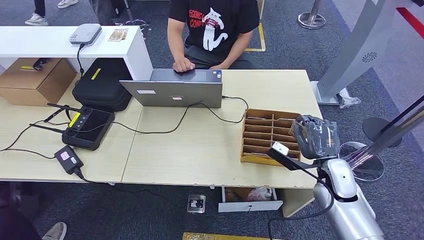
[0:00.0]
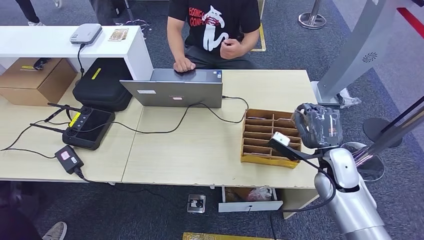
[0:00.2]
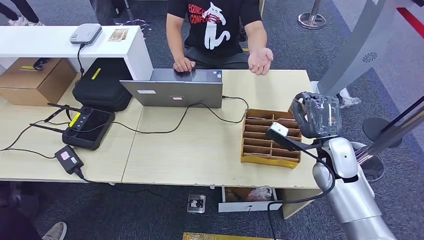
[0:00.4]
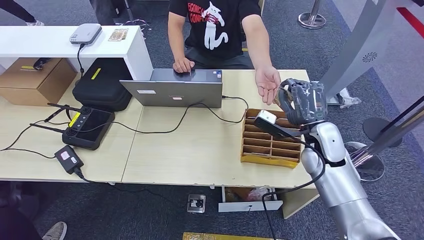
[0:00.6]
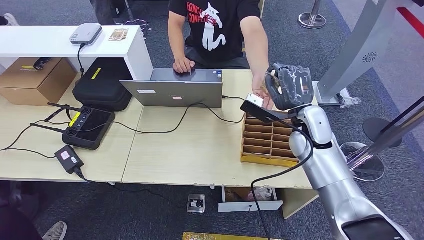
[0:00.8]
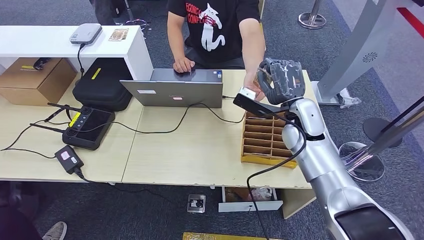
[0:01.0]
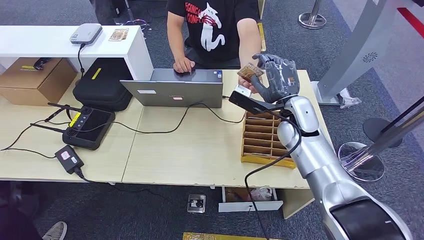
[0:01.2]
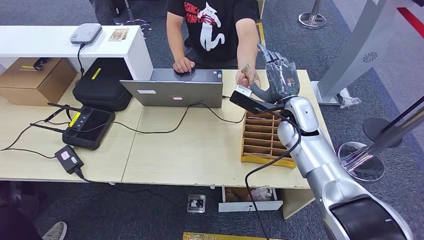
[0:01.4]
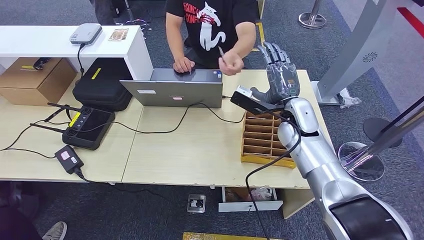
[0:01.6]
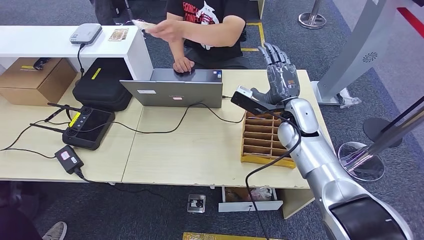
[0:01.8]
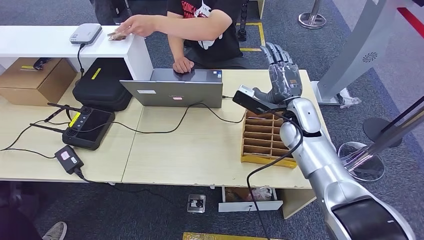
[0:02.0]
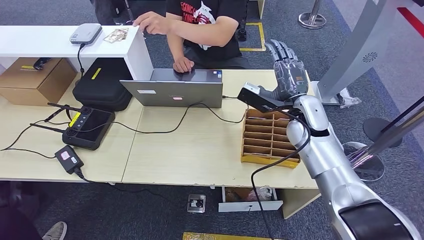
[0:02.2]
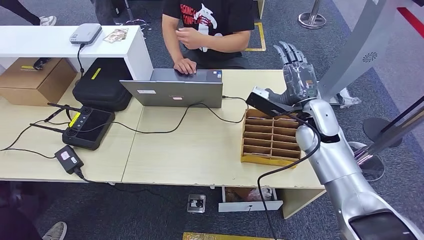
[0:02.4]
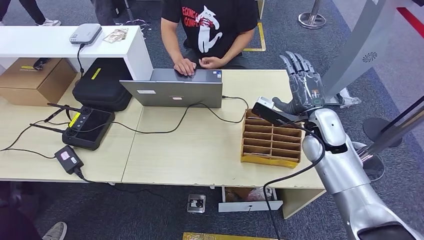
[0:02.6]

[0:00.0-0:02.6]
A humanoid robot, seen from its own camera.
Step, 0:00.2 to 0:02.6: Hand the room card to the target.
0:00.0 to 0:01.2: The right hand is displaced upward, forward and to the left by approximately 20 cm.
0:01.2 to 0:02.6: The right hand is displaced to the right by roughly 5 cm.

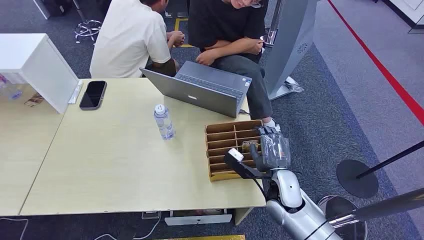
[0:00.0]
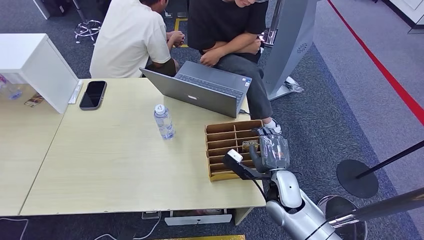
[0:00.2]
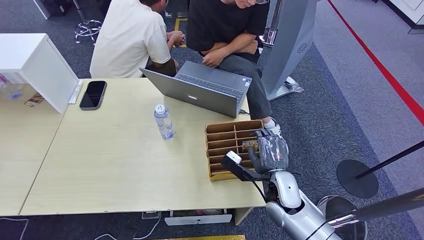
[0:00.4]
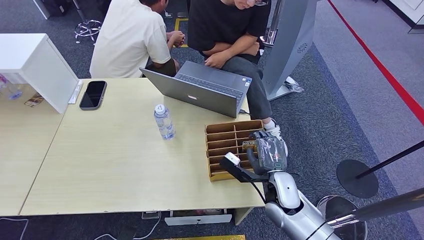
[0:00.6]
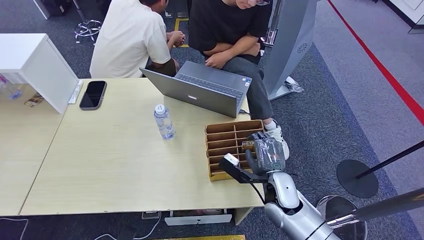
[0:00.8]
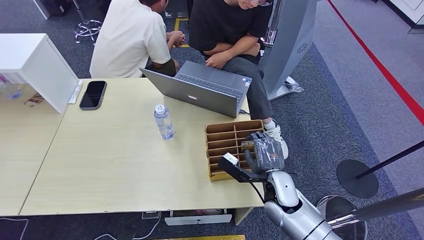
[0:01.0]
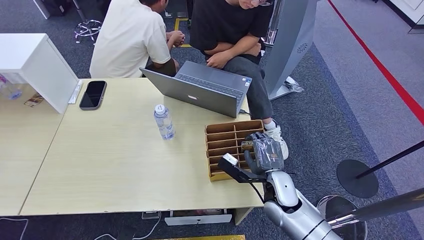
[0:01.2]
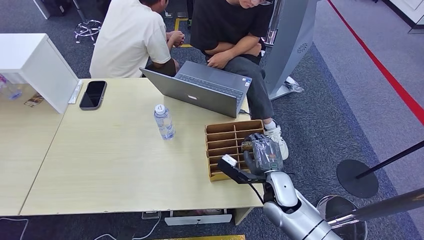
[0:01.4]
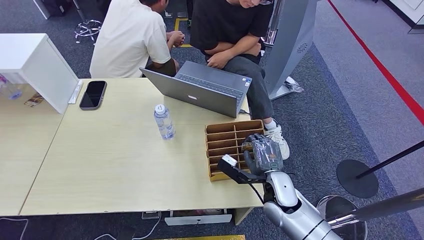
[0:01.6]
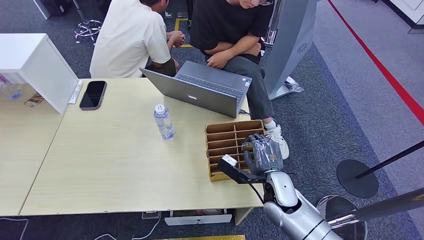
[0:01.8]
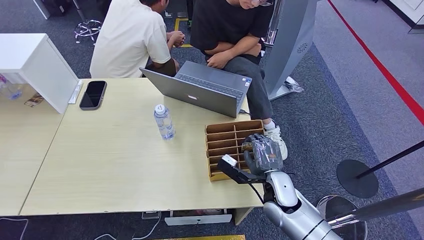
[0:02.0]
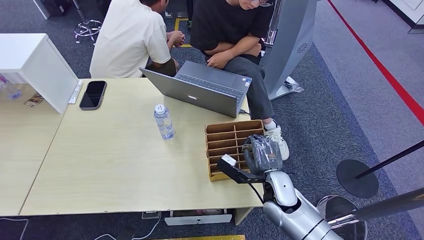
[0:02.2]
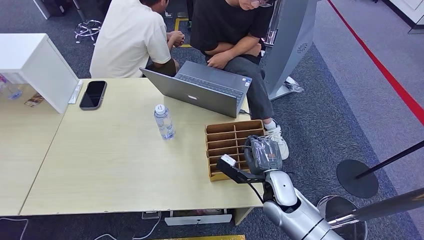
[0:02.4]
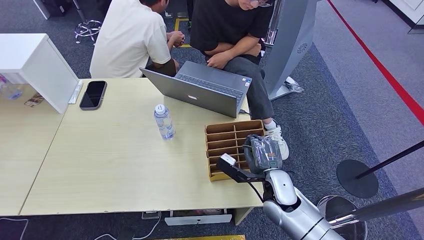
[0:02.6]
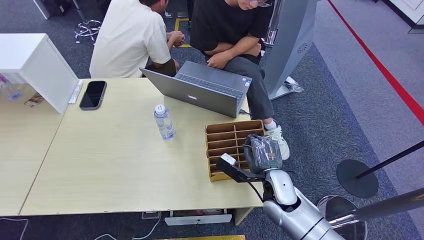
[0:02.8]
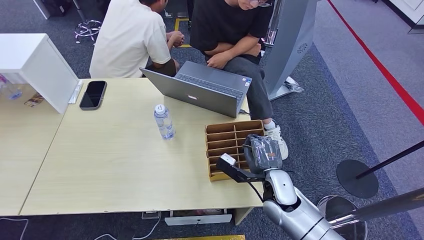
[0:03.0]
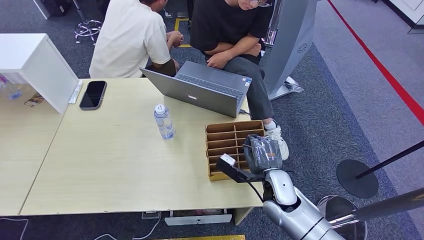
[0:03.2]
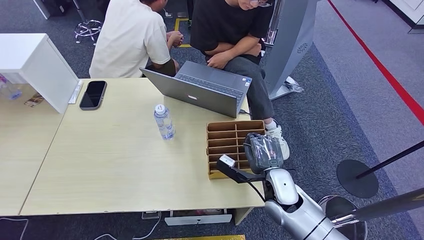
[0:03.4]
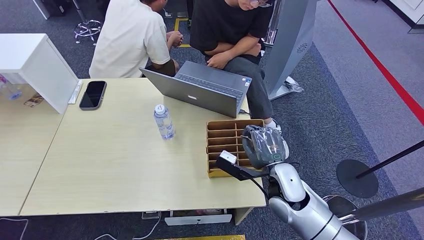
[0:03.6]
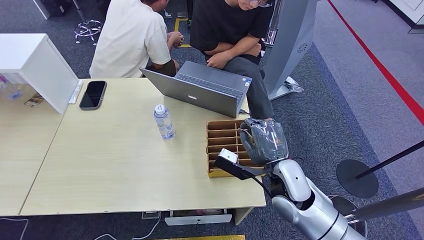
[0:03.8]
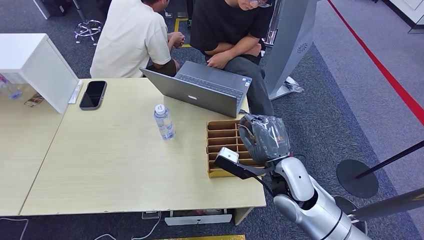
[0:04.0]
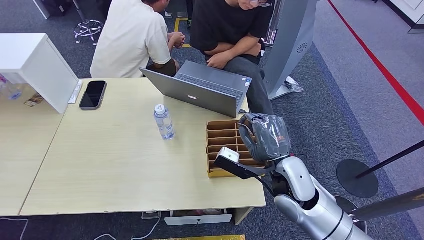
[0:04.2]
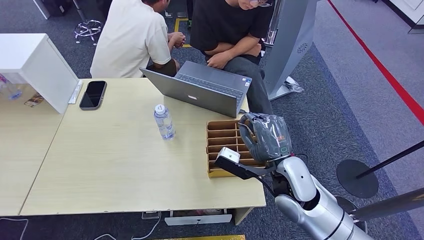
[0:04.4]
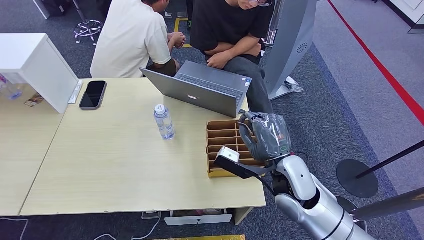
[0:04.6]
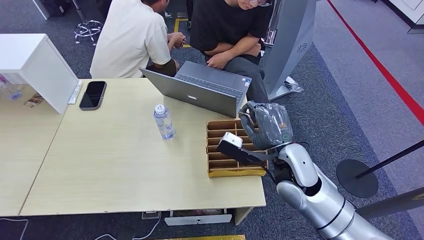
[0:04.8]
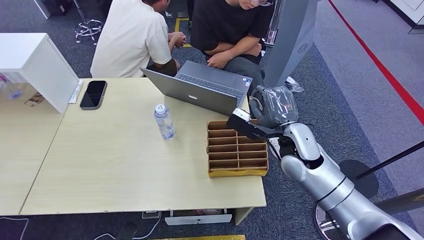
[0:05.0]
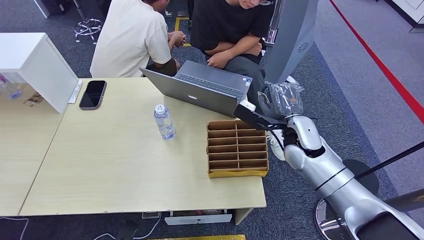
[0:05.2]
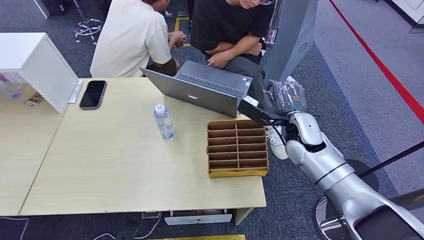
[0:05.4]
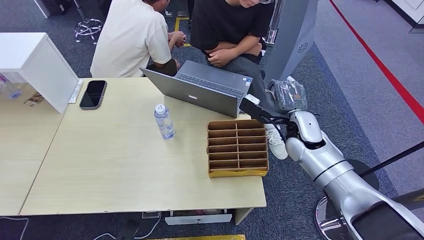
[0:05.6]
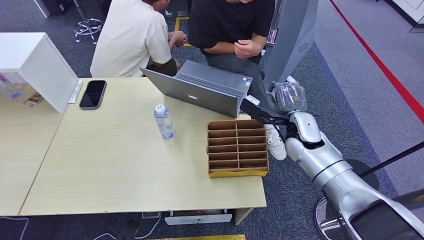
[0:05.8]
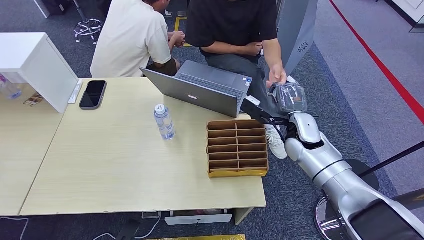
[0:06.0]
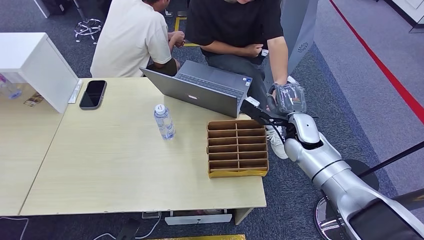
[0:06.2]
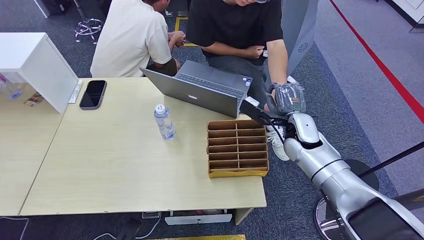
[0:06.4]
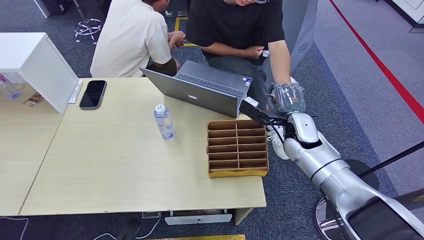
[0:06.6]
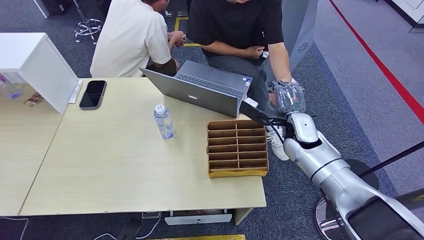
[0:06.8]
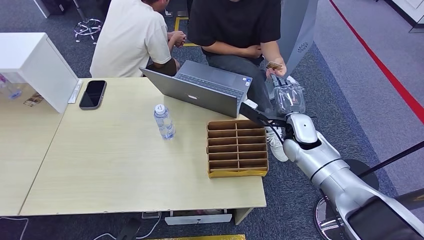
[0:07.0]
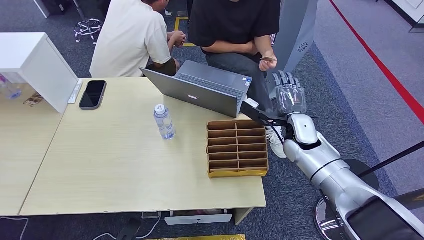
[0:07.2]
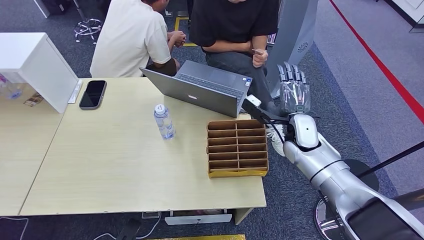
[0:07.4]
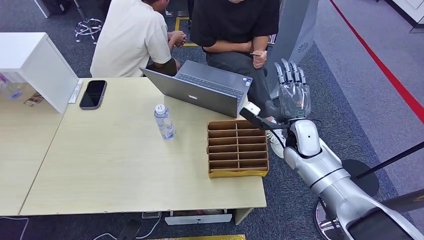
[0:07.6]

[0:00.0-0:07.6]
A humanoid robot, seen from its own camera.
Step, 0:00.0 to 0:04.2: Pick up the room card from the card holder.
Step, 0:04.4 to 0:07.6: Hand the room card to the target.
0:01.6 to 0:03.0: The two hands keep their place.
0:03.0 to 0:04.6: The right hand travels upward by about 10 cm.
0:04.6 to 0:06.0: The right hand travels forward and to the right by roughly 15 cm.
0:06.0 to 0:07.6: The hands make only small movements.
